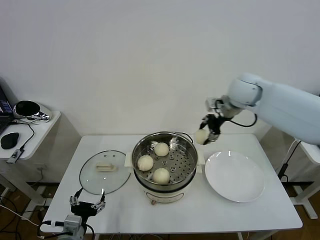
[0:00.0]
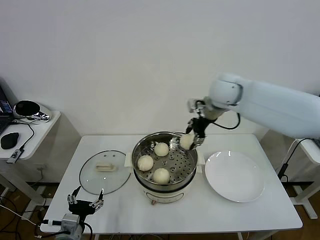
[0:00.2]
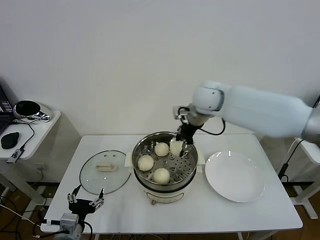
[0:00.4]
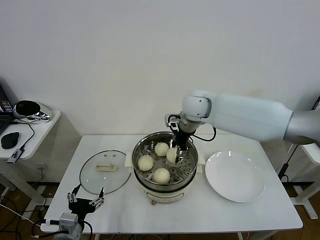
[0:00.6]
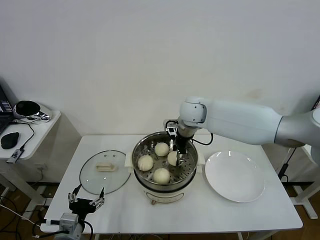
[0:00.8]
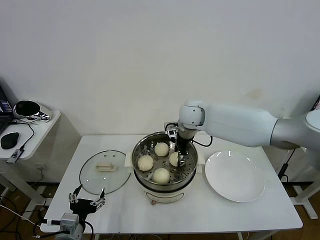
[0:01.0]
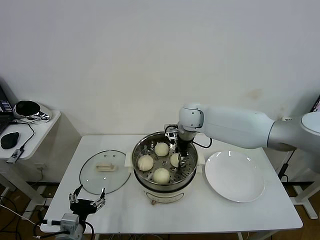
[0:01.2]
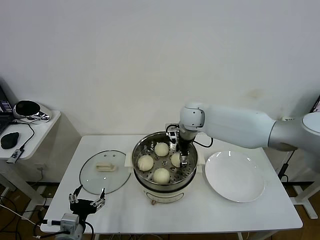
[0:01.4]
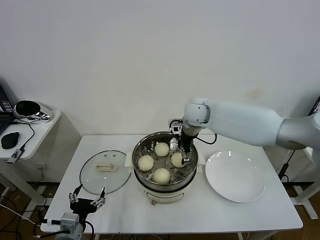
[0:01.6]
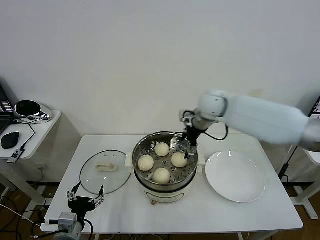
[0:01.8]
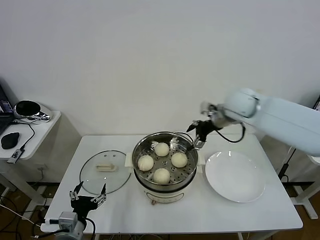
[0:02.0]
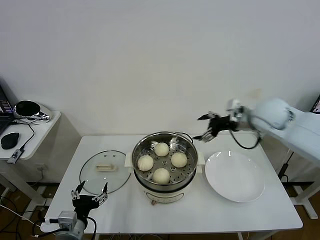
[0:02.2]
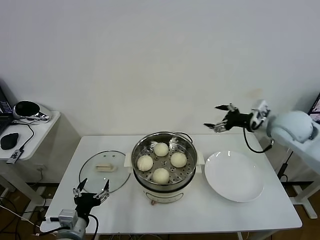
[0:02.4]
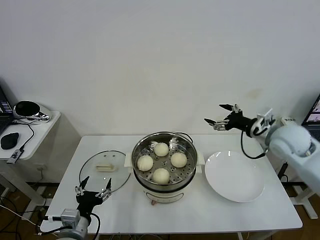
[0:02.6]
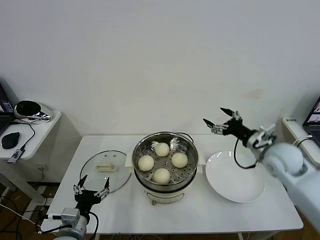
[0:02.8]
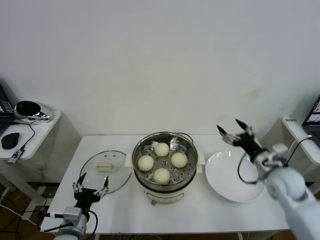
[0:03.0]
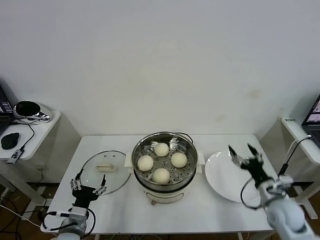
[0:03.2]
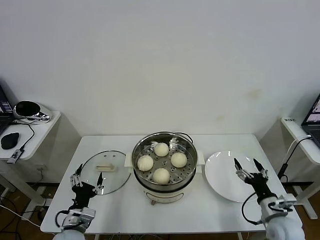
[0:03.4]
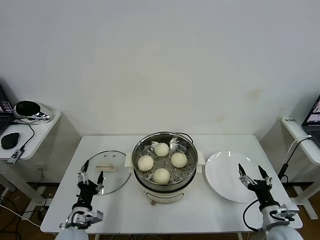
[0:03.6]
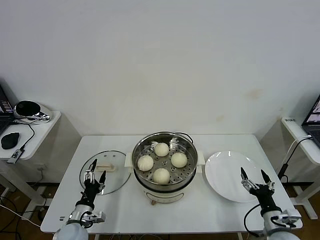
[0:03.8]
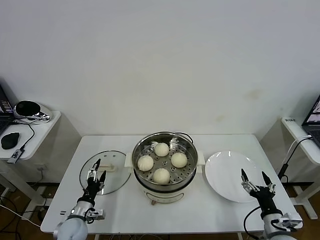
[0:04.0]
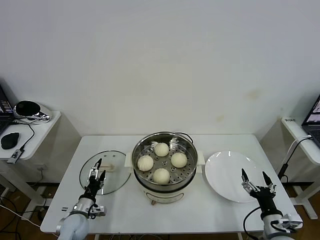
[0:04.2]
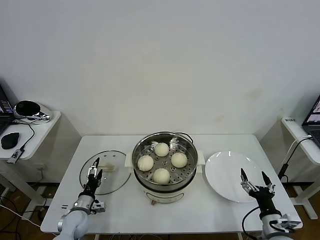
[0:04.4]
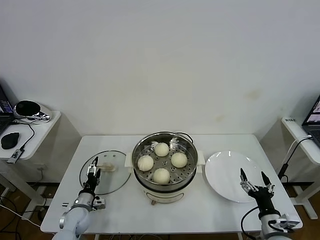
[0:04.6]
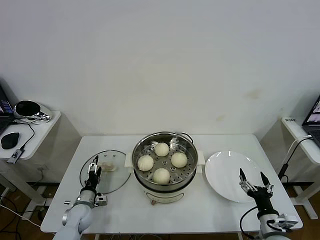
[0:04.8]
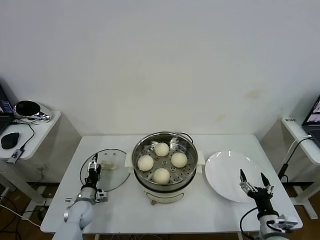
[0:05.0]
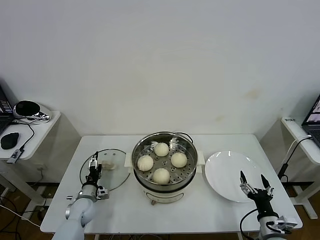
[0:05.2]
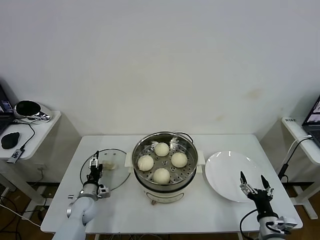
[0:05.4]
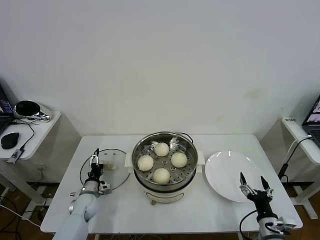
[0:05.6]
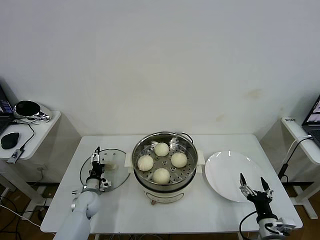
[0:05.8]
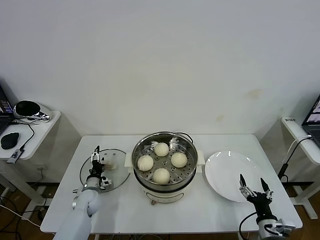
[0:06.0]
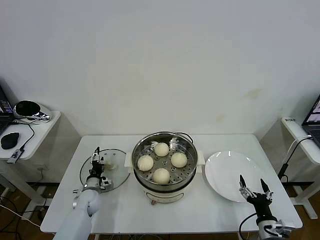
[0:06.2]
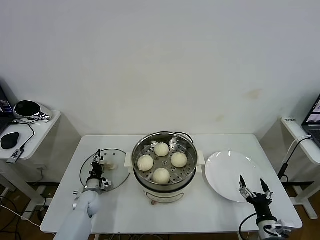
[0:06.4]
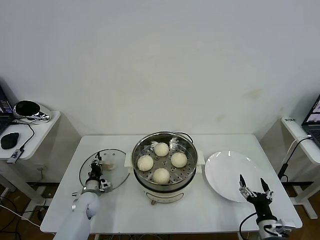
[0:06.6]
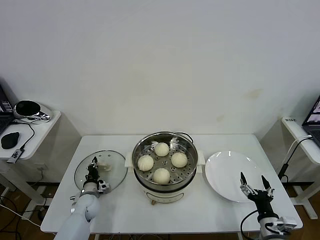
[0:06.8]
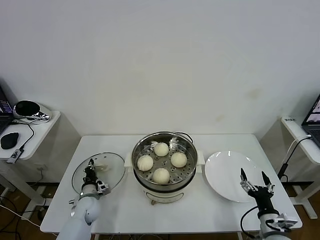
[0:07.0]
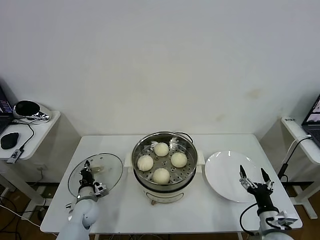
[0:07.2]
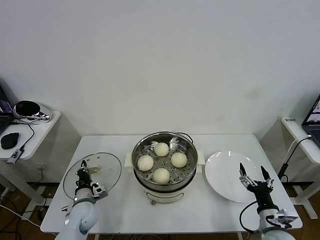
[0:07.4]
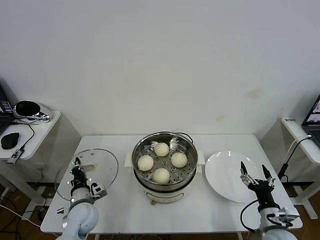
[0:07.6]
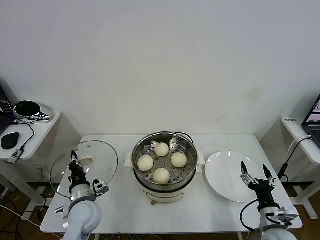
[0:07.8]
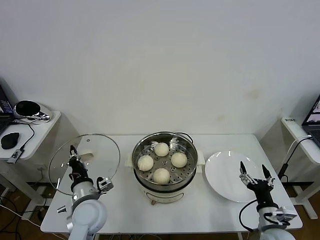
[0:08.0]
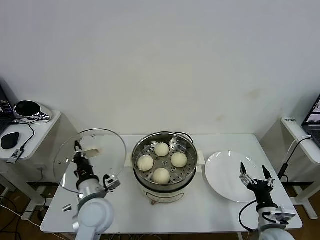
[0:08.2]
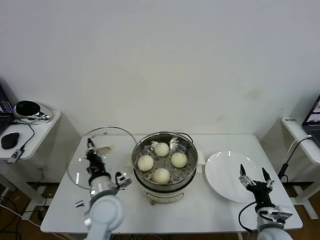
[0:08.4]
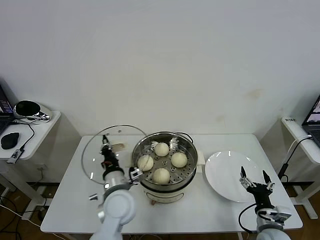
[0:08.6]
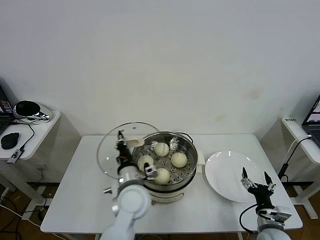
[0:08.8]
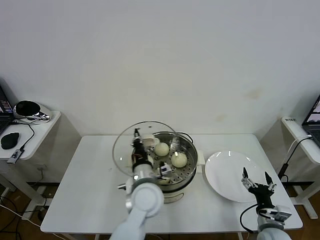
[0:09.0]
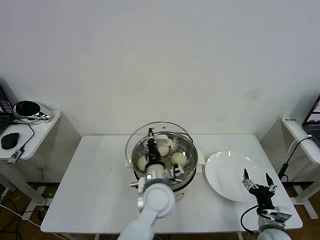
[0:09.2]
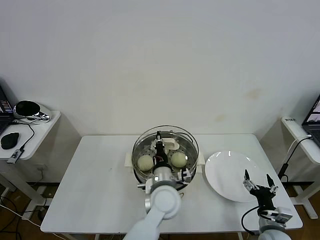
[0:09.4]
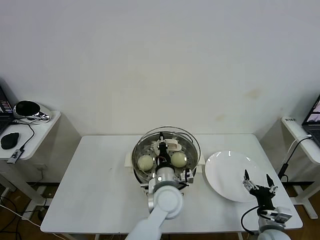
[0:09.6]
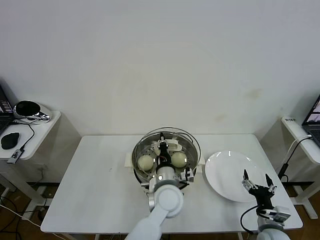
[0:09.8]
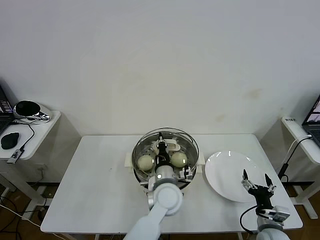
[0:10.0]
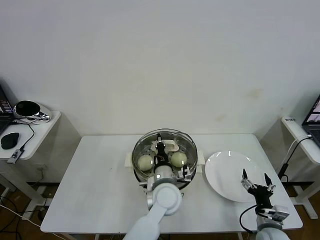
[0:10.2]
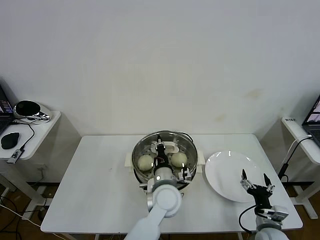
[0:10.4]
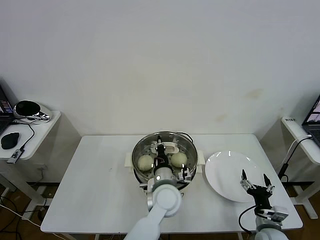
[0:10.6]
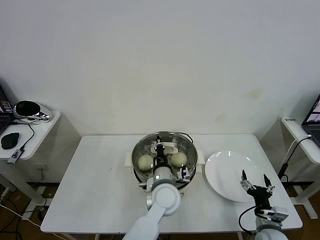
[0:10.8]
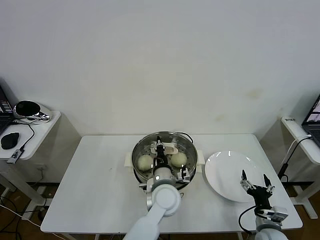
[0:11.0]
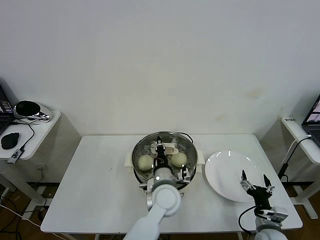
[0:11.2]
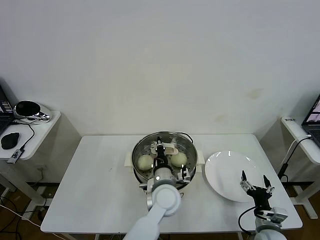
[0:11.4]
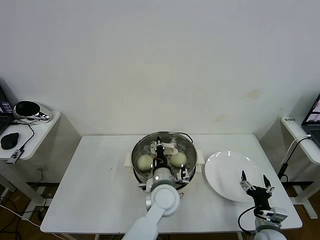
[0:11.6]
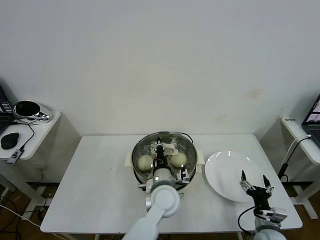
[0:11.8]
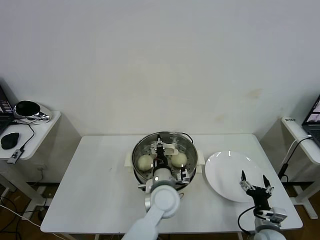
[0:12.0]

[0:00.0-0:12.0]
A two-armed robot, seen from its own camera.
Task of the whole recording: take steamed baozi put them in steamer then cover it.
Step, 0:00.0 to 0:01.8: Place the baozi on the steamer with right gripper.
Step, 0:02.0 to 0:07.0: Grasp the pot lid with left gripper.
0:00.0 to 0:01.6: The right gripper heads to the left and downward, covering about 15 cm, and opens.
0:01.6 to 0:03.0: The right gripper is displaced to the right, backward and downward by roughly 35 cm.
0:03.0 to 0:04.4: The left gripper goes roughly 20 cm downward, forward and to the left; the right gripper travels backward and downward by roughly 20 cm.
0:04.4 to 0:06.0: The left gripper moves forward, about 10 cm.
0:06.0 to 0:07.6: The left gripper moves backward and upward, about 10 cm, and closes.
0:07.6 to 0:09.0: The left gripper shifts about 25 cm to the right and upward.
0:09.0 to 0:10.4: The left gripper is displaced to the right by approximately 5 cm.
0:10.4 to 0:12.0: Both grippers stay put.

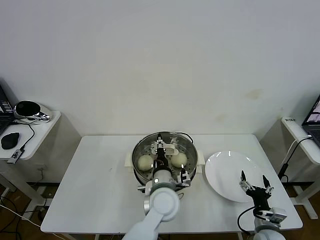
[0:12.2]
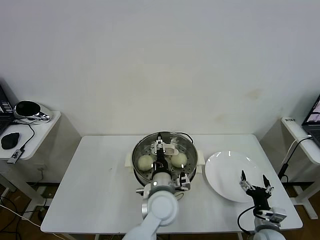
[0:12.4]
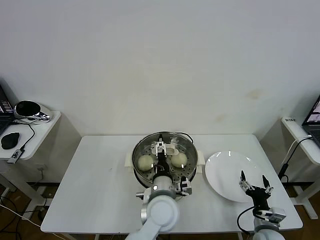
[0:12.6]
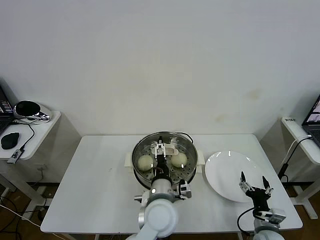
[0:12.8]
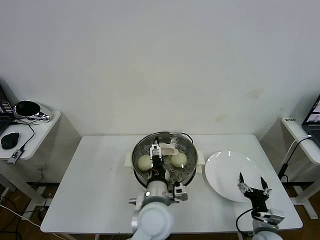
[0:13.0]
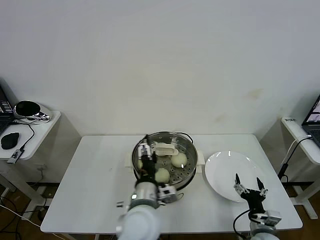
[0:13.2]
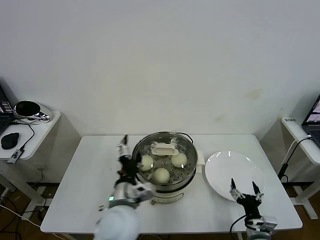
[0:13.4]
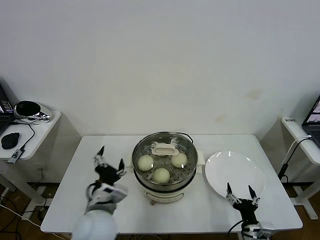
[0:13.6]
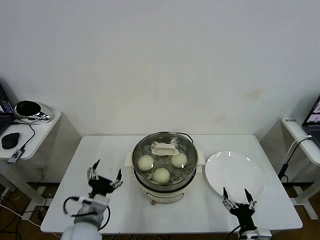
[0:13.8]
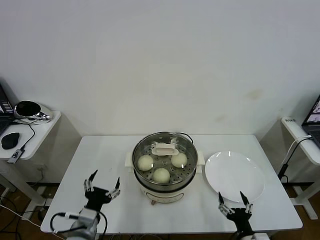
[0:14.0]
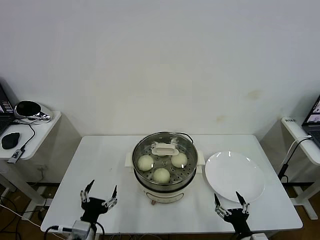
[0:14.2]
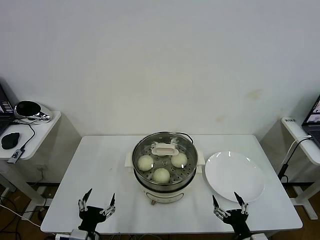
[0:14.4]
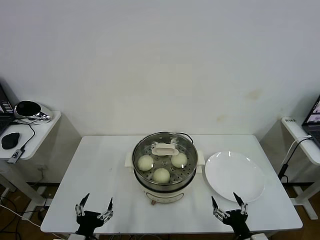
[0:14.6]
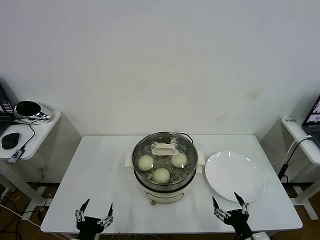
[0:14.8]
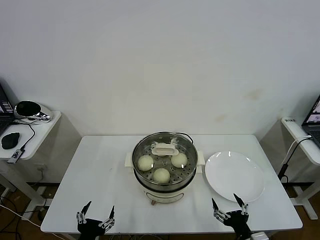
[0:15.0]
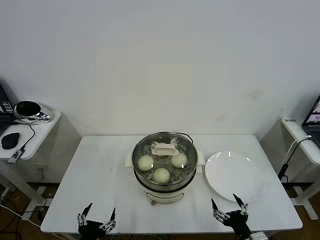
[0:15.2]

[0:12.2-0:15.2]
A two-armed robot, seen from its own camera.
Task of the whole recording: take steamed baozi put them in steamer then cover it.
0:12.2 to 0:13.8: The right gripper moves backward, some 5 cm. The left gripper travels to the left and backward by roughly 20 cm, and opens.
0:13.8 to 0:15.2: The right gripper moves upward, approximately 5 cm, while the left gripper heads backward and downward, covering some 15 cm.
